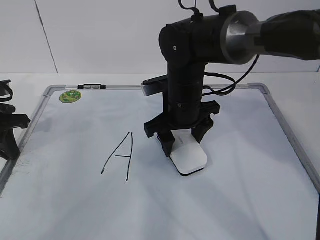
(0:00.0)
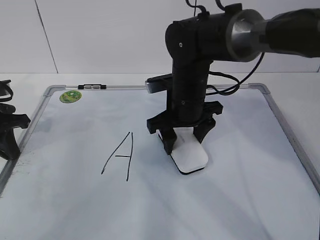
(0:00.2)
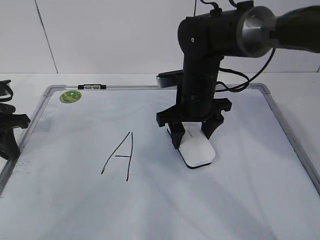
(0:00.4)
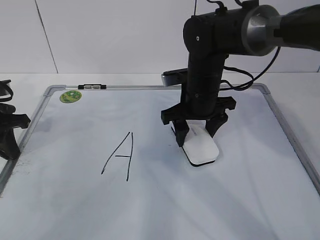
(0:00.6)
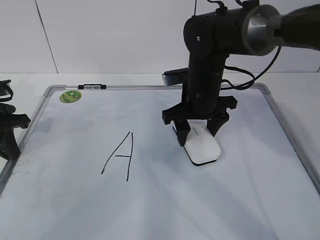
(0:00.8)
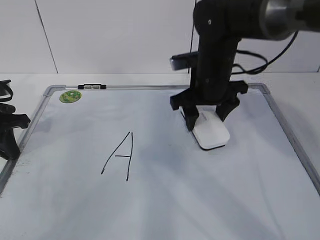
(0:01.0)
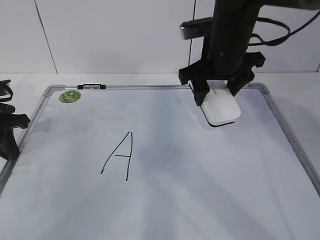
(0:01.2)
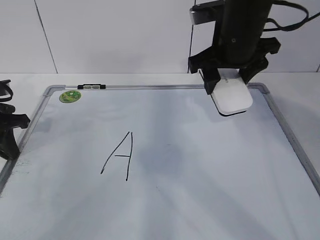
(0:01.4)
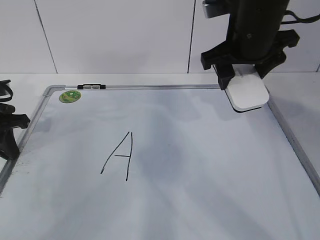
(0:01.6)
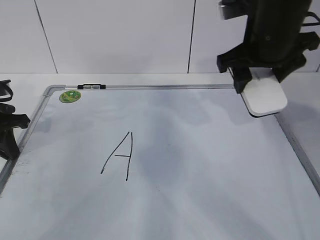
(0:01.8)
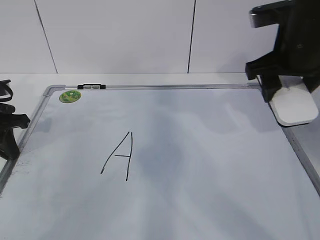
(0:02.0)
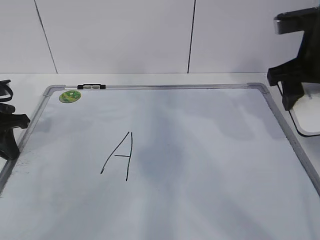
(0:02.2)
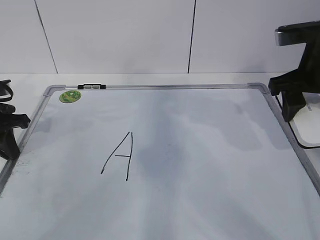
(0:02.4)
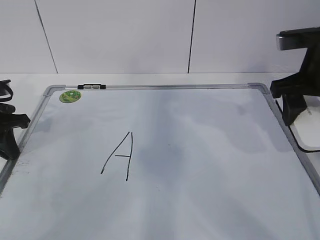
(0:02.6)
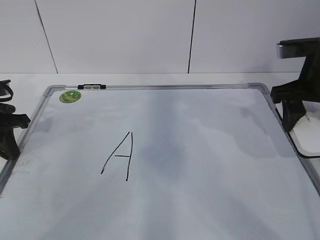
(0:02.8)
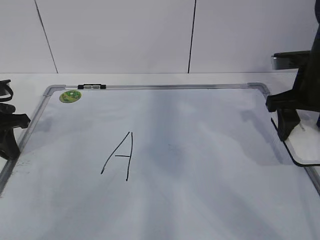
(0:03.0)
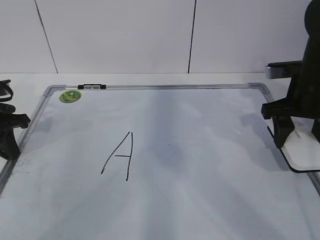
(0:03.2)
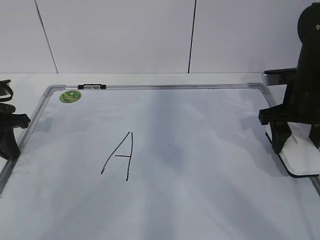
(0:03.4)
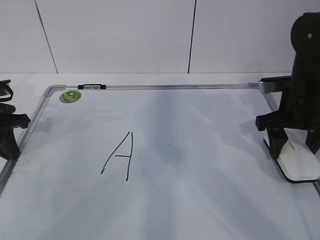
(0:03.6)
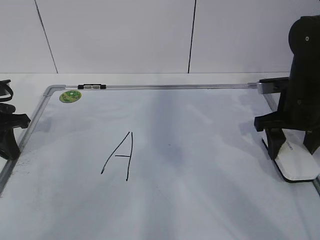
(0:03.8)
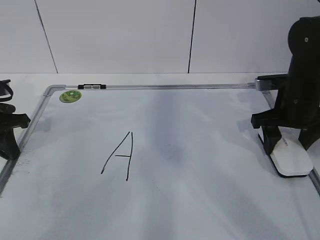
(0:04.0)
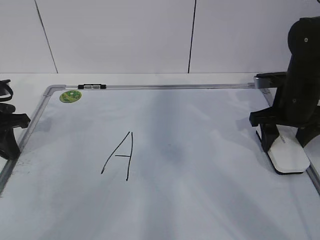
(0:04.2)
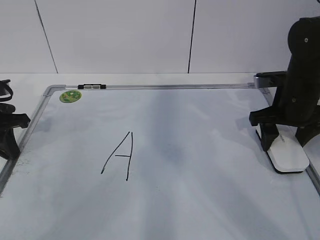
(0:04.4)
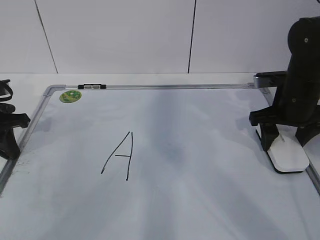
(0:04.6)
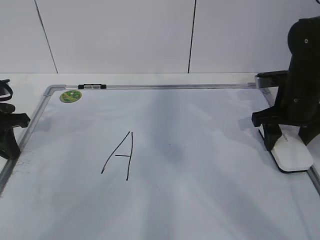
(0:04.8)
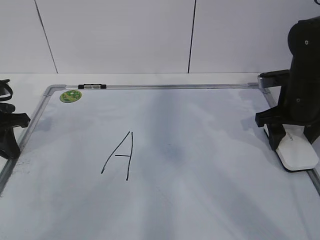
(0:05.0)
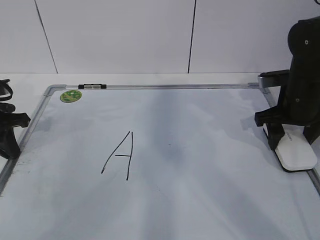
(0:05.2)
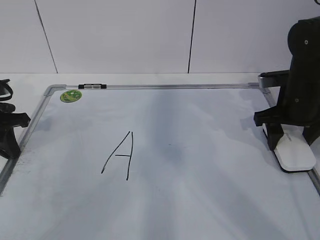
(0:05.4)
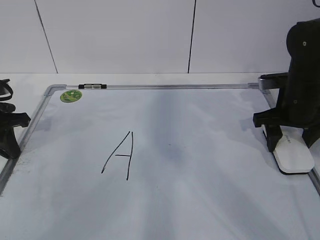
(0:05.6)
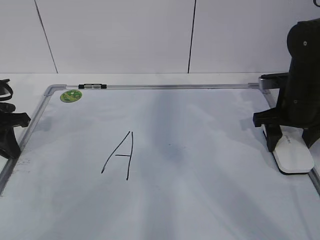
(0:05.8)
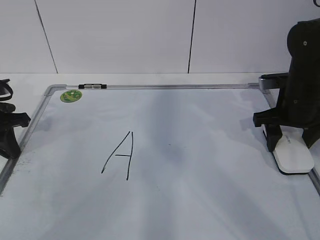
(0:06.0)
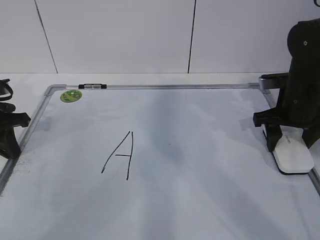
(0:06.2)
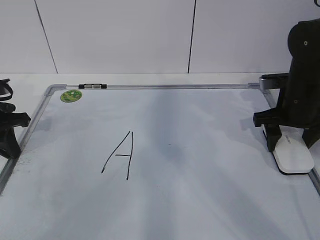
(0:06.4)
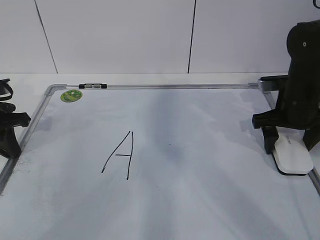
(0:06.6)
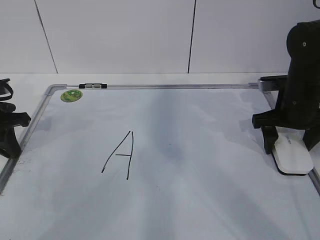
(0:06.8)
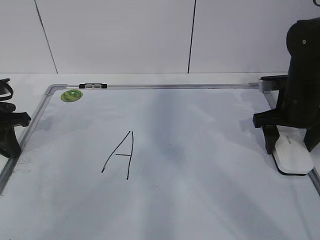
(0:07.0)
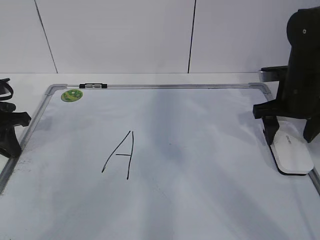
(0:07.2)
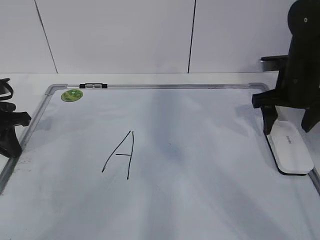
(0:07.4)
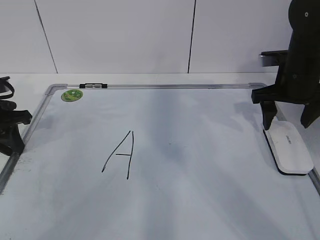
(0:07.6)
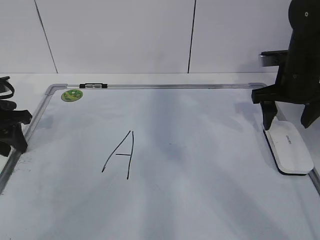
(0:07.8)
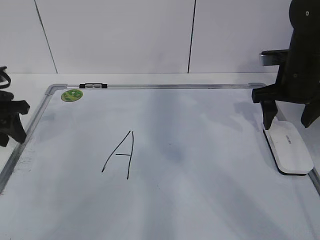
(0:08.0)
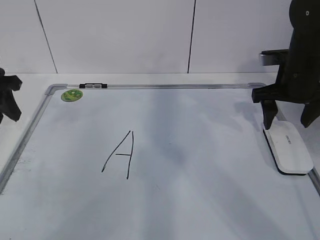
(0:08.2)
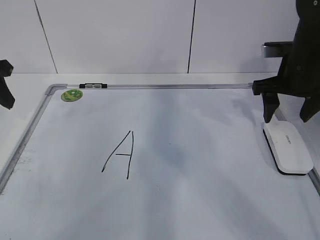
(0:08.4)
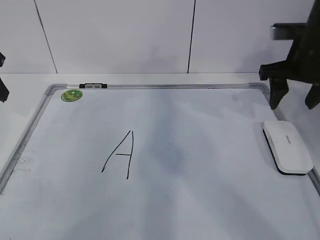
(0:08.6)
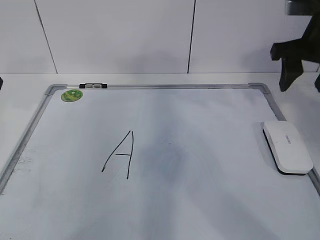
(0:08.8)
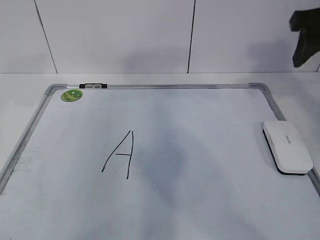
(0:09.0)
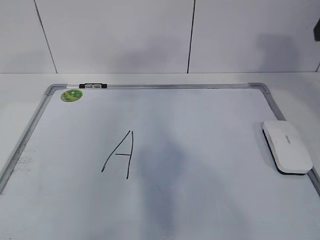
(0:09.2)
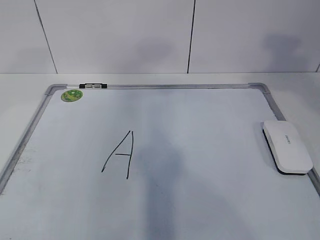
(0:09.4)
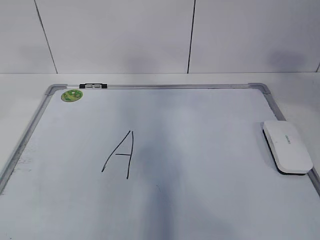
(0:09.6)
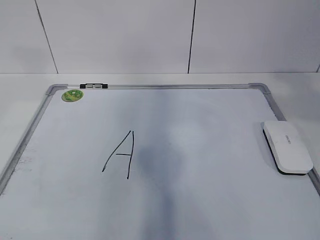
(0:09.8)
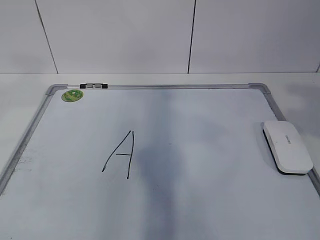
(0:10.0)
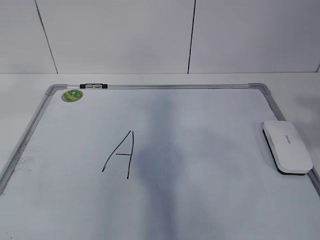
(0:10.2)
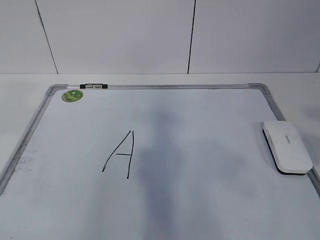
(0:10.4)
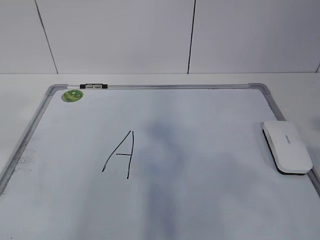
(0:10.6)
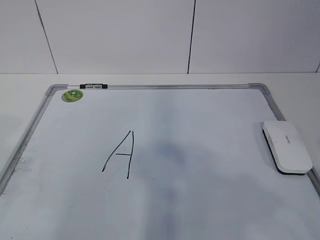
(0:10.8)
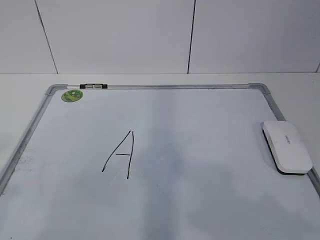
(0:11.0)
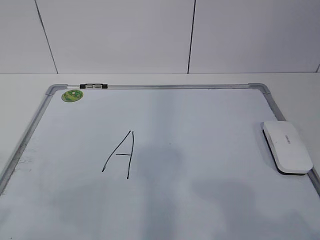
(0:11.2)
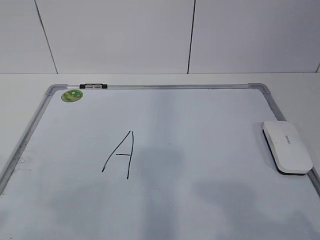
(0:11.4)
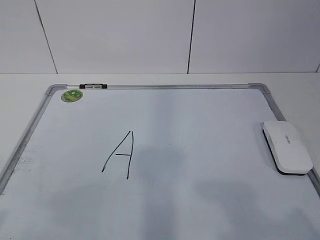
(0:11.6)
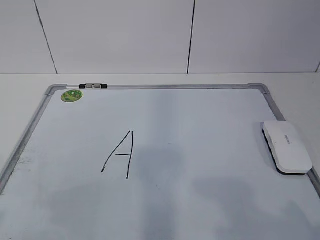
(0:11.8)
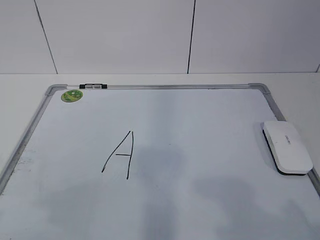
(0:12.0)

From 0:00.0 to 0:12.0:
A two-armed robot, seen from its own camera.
Task of the whole recording: pick up the eraser on the blackboard and erase the letter "a".
Step, from 0:00.0 to 0:02.4: Put down the eraser with your right hand.
From 0:00.0 to 0:01.6: The right gripper goes roughly 15 cm upward and to the right.
From 0:01.6 to 0:03.0: The right gripper goes some 15 cm to the right and downward.
From 0:03.0 to 0:04.4: The right gripper shifts some 5 cm downward.
From 0:04.4 to 0:06.0: Both grippers stay put.
From 0:06.0 to 0:07.6: The right gripper opens up.
From 0:07.6 to 0:09.0: The left gripper is displaced upward by some 15 cm, and opens. Meanwhile the right gripper heads upward and backward, covering roughly 15 cm, and closes up.
From 0:09.0 to 0:10.4: The right gripper goes some 30 cm backward. Meanwhile the left gripper heads backward and upward, covering roughly 25 cm.
From 0:10.4 to 0:12.0: The left gripper travels downward and backward by roughly 15 cm; the right gripper travels downward by approximately 15 cm.

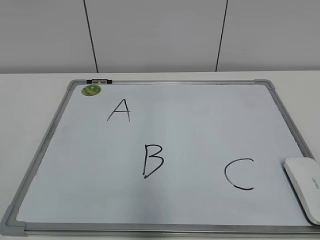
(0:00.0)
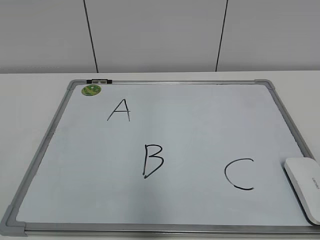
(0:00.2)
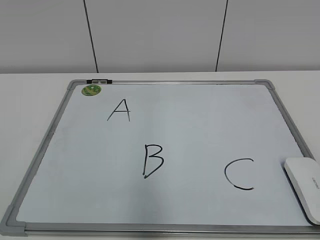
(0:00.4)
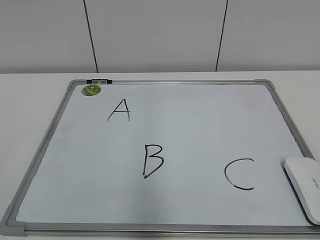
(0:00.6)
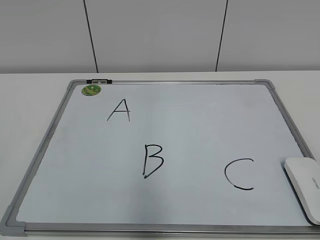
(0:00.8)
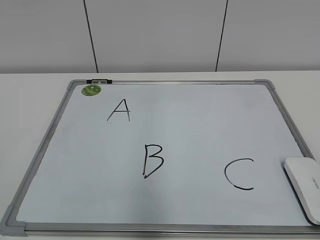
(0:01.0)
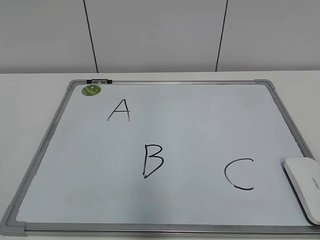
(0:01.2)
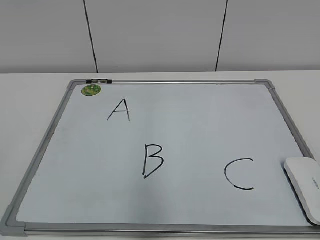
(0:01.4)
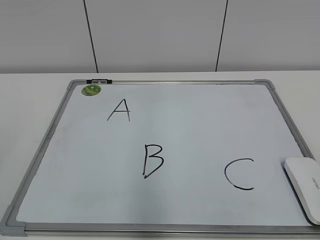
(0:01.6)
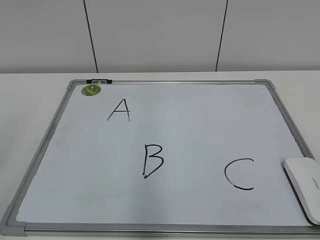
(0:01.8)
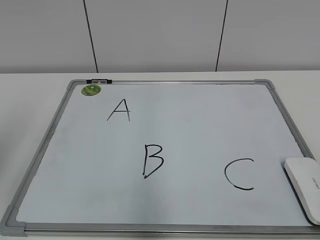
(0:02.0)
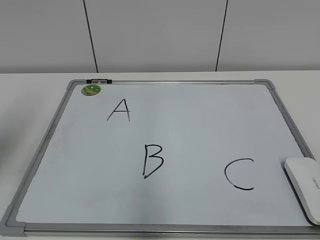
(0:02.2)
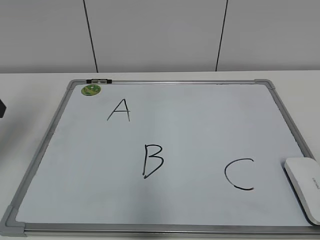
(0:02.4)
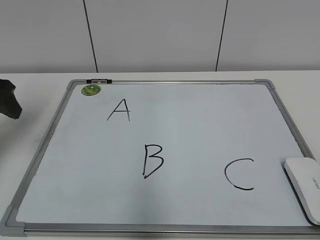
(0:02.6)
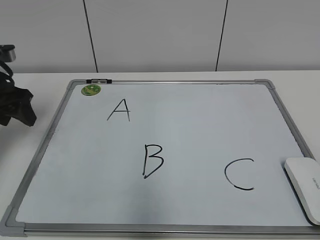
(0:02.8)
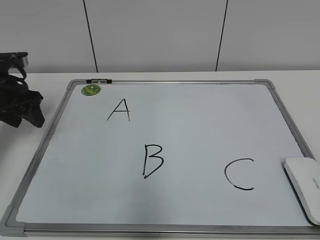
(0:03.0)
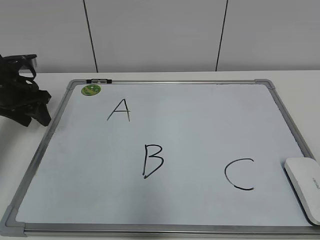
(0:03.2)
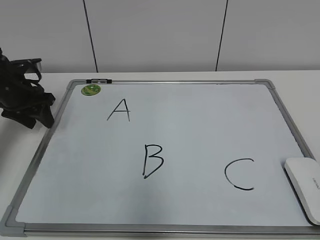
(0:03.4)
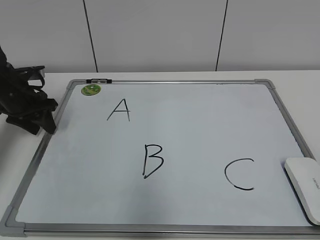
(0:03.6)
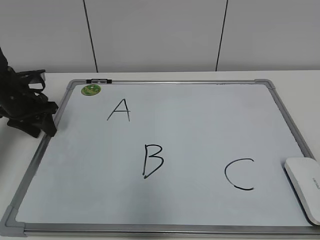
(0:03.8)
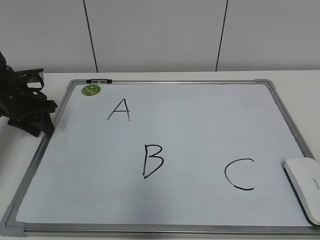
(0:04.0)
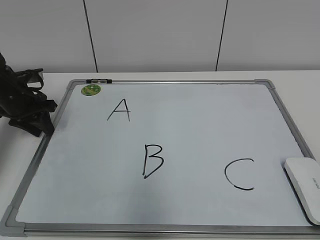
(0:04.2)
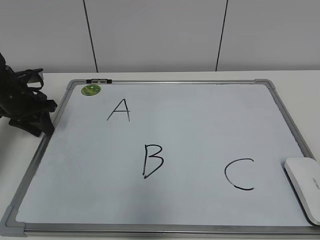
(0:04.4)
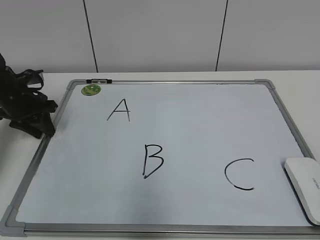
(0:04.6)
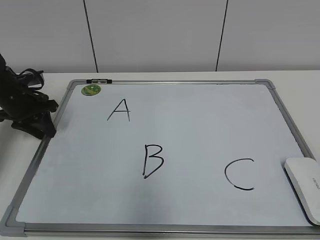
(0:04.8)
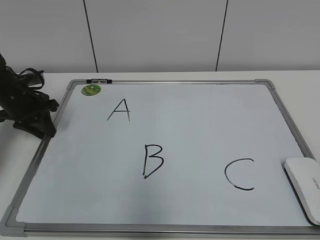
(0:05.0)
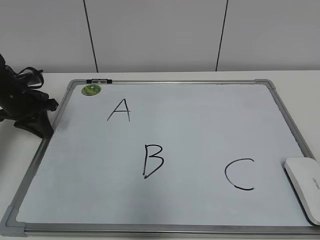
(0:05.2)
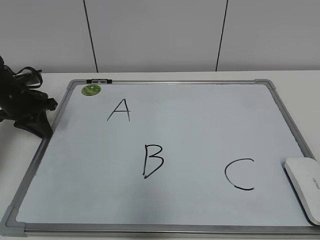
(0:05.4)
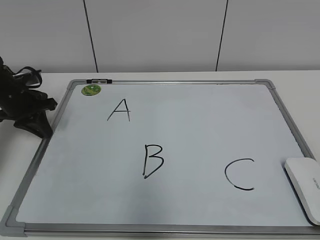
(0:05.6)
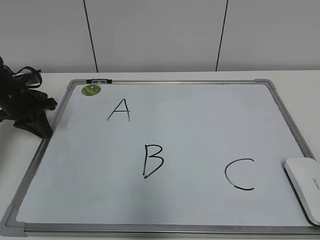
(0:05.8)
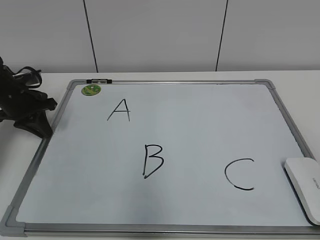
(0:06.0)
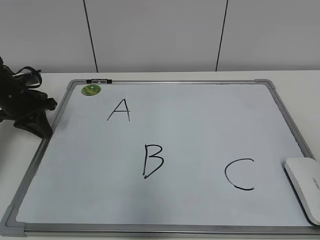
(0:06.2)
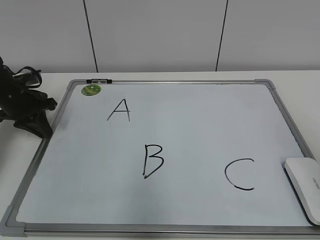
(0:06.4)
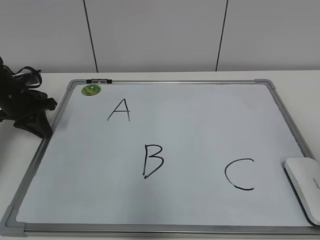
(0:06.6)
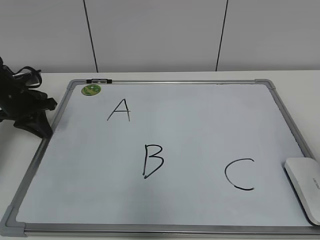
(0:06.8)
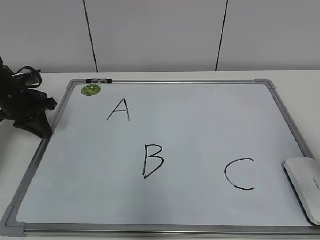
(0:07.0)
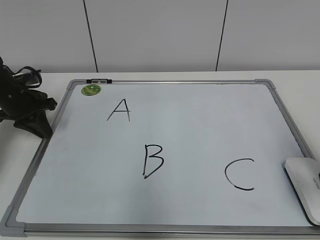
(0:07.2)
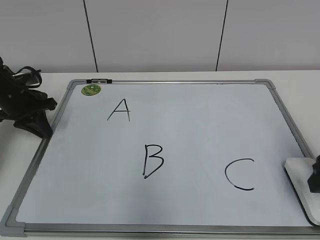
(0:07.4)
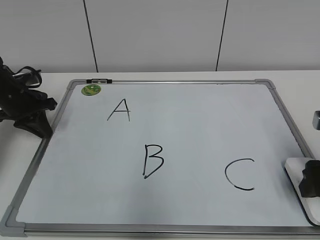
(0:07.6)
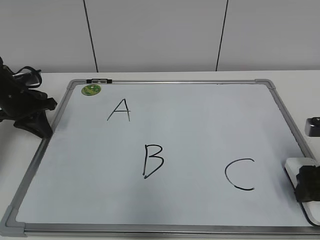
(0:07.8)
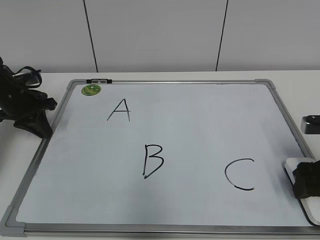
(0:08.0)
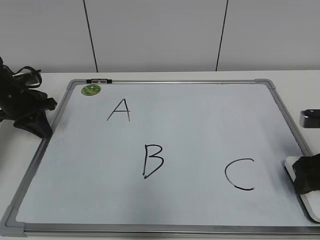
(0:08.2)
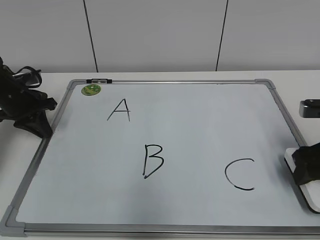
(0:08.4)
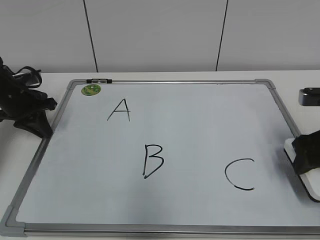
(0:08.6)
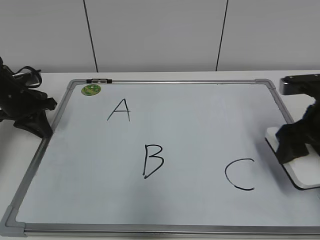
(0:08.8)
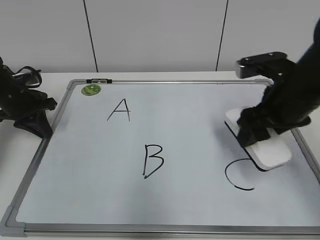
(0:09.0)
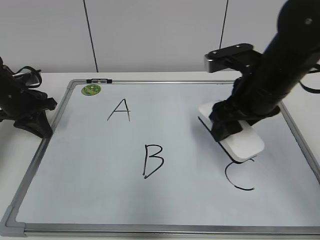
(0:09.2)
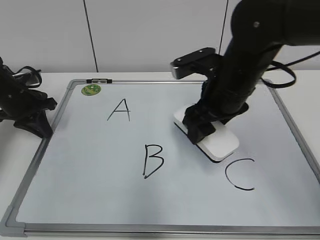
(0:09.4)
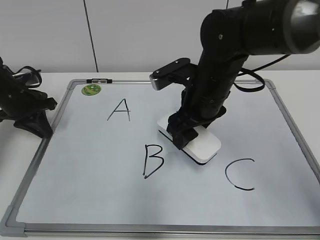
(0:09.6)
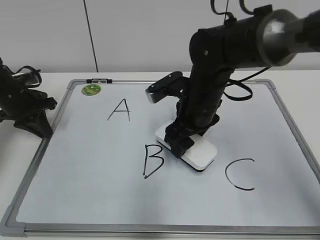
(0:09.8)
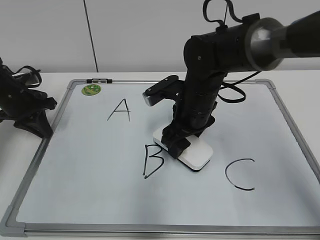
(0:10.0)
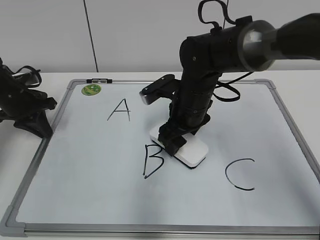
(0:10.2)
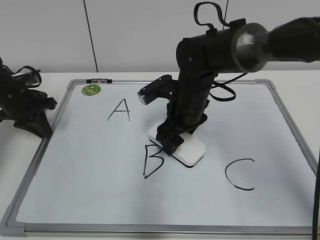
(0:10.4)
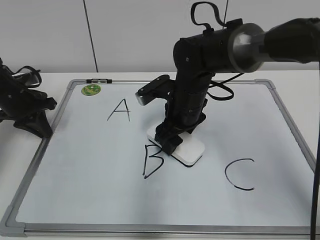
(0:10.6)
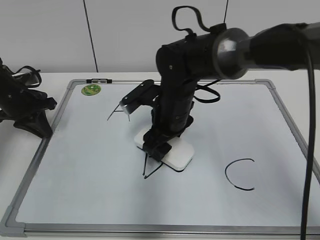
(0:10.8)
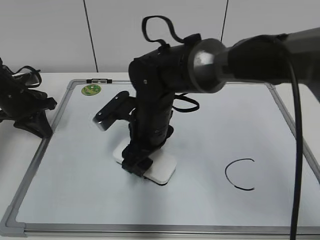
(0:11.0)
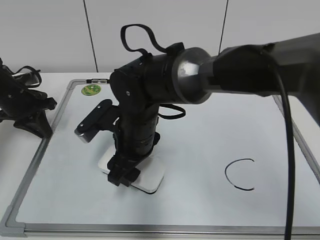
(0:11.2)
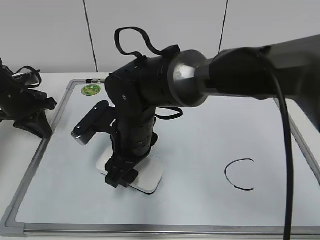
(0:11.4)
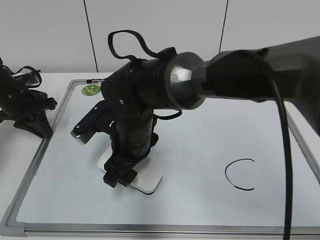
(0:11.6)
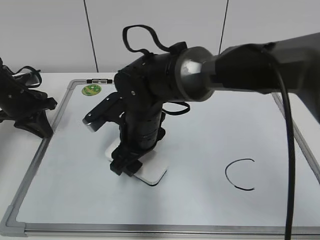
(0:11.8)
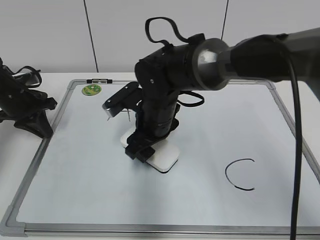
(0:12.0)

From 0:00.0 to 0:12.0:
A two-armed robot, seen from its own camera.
Task of the whole recording: pick up the eraser on the blackboard and erase the letter "B".
Step, from 0:00.0 to 0:05.8: Hold the drawing board steady with your left hand.
From 0:01.6 to 0:03.0: The left gripper is displaced forward by some 35 cm.
From 0:03.0 to 0:04.4: The left gripper travels downward by approximately 5 cm.
From 0:04.4 to 0:06.0: The left gripper closes.
From 0:06.0 to 0:07.6: The right gripper heads forward and downward, covering some 25 cm, and opens up.
From 0:07.6 to 0:09.0: The right gripper travels to the left, forward and upward by roughly 10 cm, and closes its fingers.
From 0:09.0 to 0:10.4: The right gripper moves to the left, forward and downward, roughly 20 cm.
From 0:10.4 to 0:12.0: The right gripper shifts approximately 5 cm to the left.
